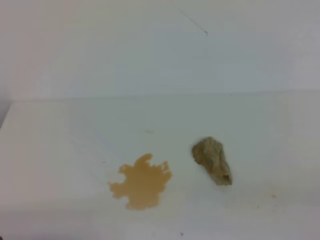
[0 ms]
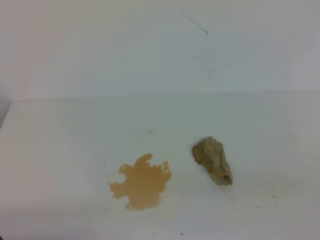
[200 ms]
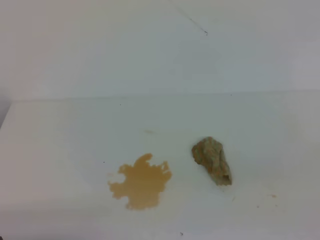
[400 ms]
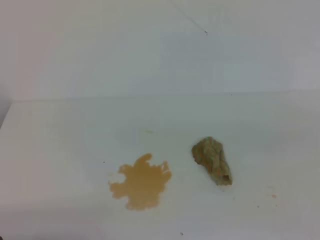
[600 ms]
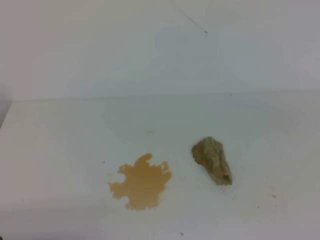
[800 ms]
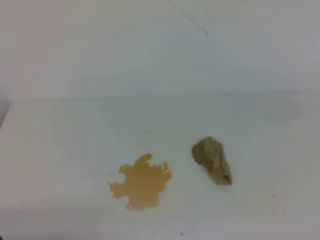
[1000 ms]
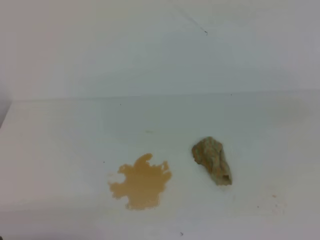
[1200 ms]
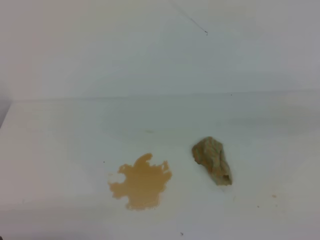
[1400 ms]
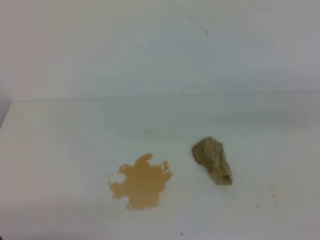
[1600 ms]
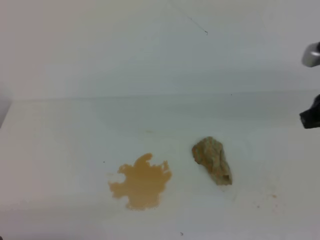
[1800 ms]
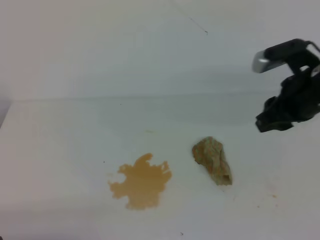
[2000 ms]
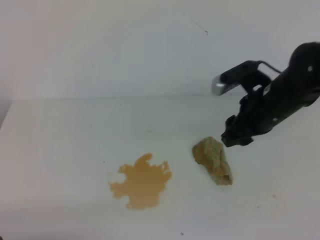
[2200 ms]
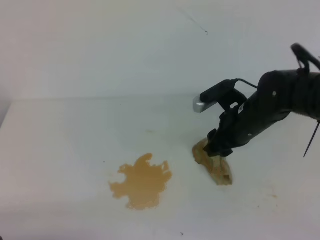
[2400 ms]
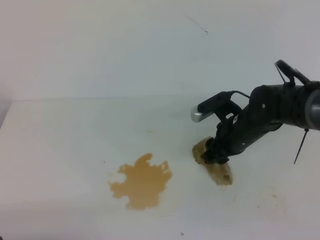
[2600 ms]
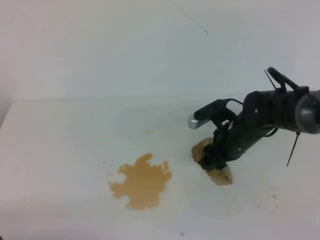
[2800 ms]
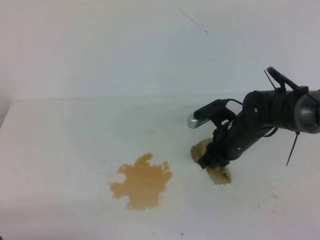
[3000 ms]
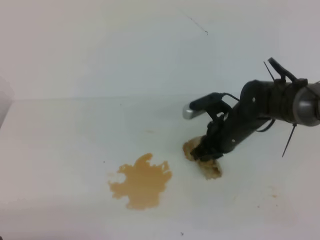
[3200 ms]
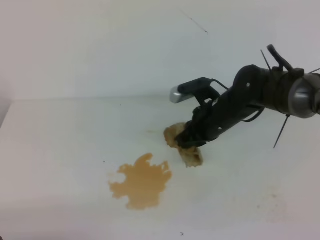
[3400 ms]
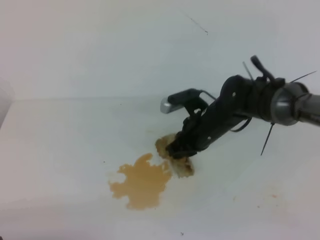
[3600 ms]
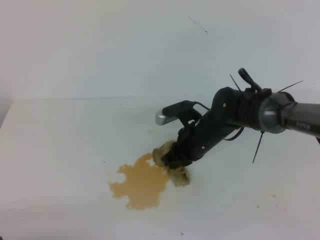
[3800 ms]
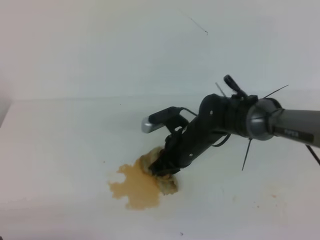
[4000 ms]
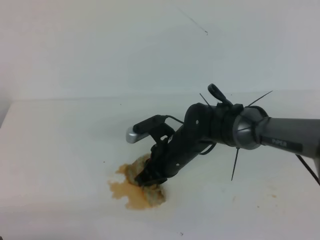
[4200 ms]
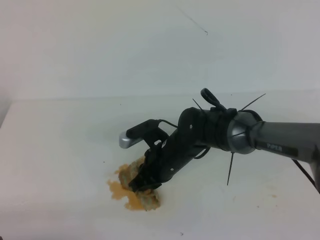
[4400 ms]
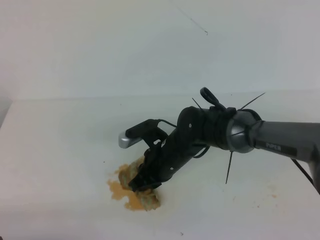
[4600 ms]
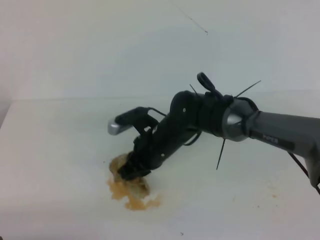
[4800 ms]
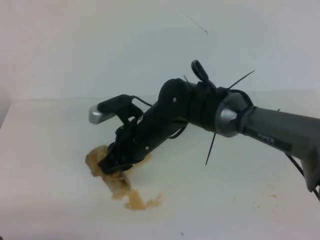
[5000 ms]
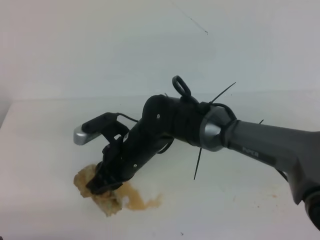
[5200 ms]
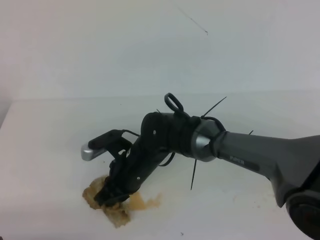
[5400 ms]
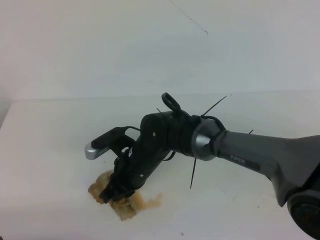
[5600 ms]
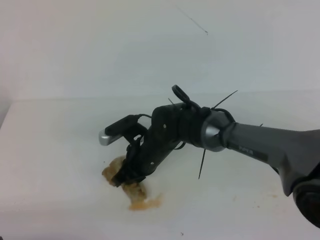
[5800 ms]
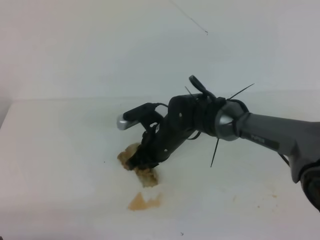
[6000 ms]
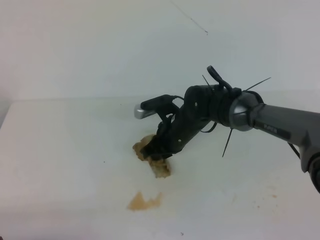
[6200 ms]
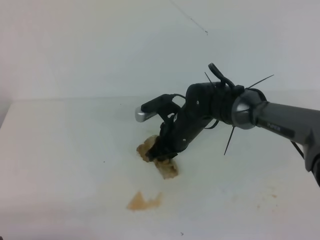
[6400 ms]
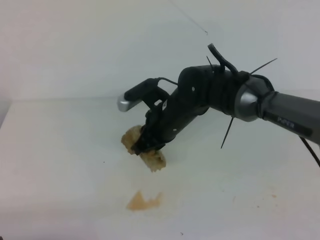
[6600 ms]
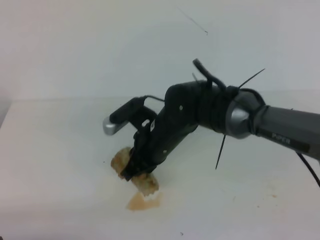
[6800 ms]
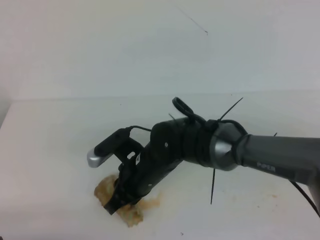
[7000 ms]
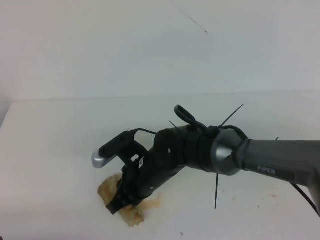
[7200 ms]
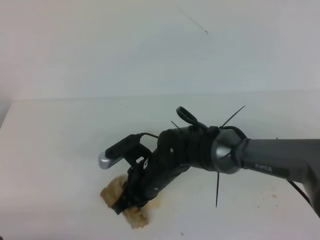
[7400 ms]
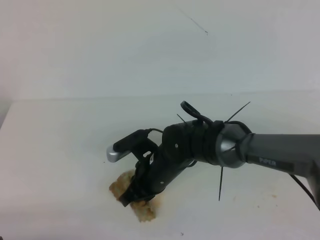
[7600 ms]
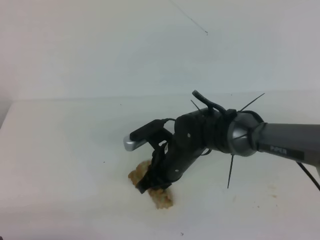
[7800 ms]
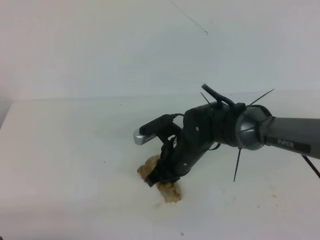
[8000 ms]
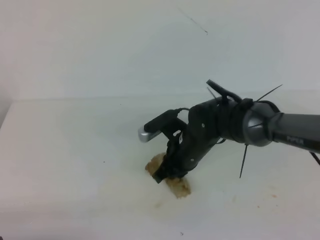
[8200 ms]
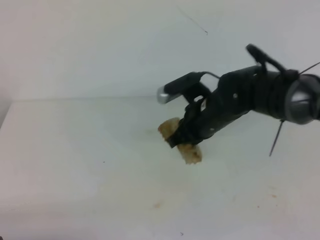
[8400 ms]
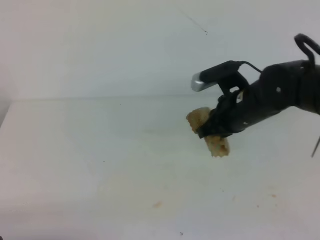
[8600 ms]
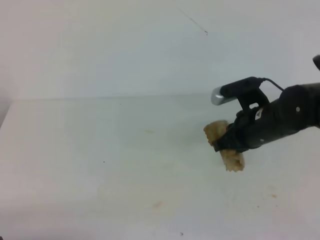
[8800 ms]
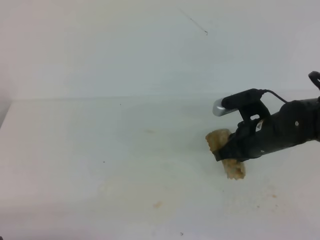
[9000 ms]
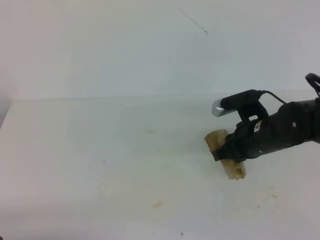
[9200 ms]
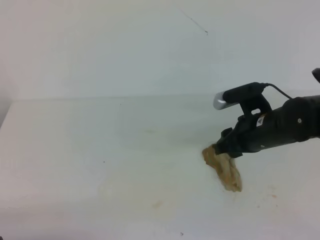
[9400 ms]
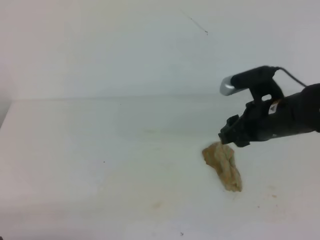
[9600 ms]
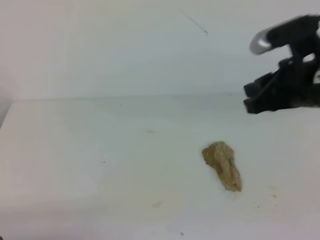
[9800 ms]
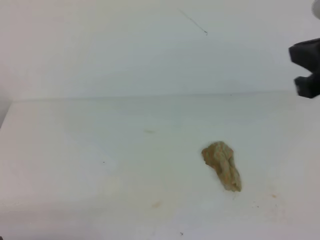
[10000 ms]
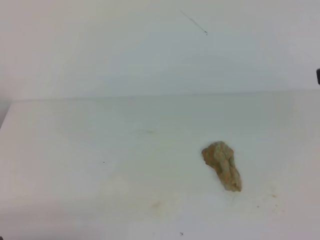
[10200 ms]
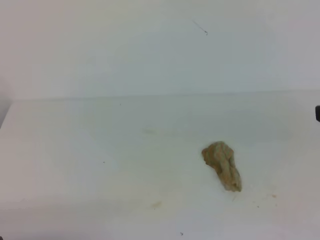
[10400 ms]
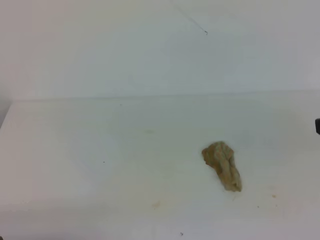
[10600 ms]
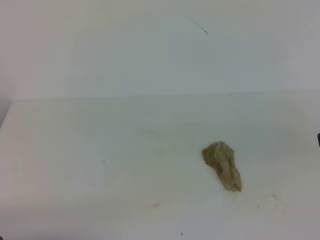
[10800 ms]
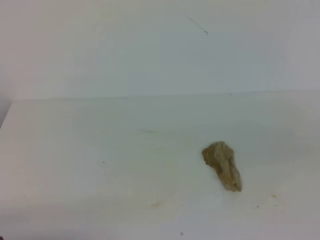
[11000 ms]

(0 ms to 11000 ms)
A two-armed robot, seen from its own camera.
1600 ms - 3200 ms: The right gripper is displaced to the left, downward and forward by about 25 cm, and opens, then closes again.
3200 ms - 4800 ms: The right gripper heads to the left, covering approximately 15 cm.
4800 ms - 6200 ms: The right gripper travels forward by some 5 cm.
6200 ms - 7800 ms: The right gripper heads backward, covering some 5 cm.
7800 ms - 9400 ms: The right gripper goes some 15 cm to the right and upward, and opens.
9400 ms - 11000 ms: The right gripper shifts approximately 25 cm backward, upward and to the right, and closes its fingers.

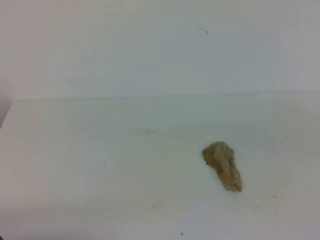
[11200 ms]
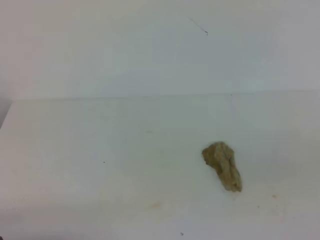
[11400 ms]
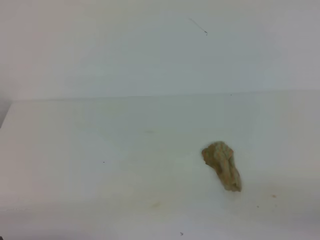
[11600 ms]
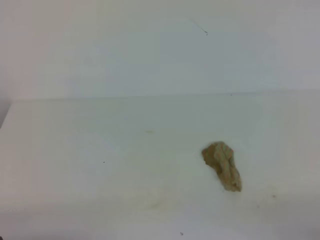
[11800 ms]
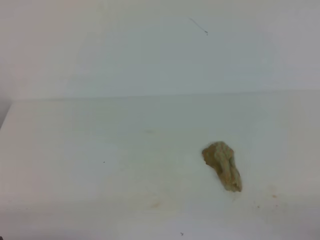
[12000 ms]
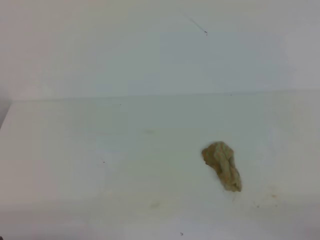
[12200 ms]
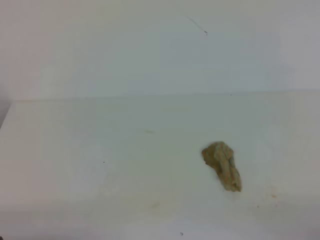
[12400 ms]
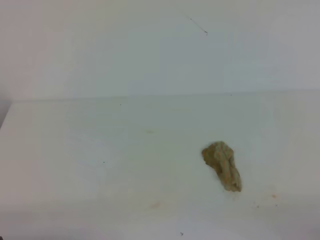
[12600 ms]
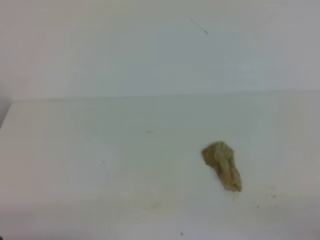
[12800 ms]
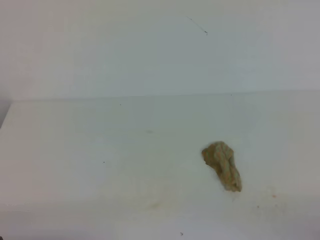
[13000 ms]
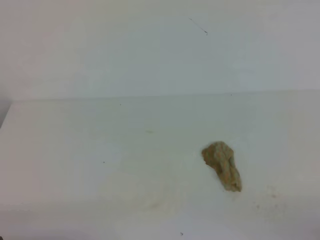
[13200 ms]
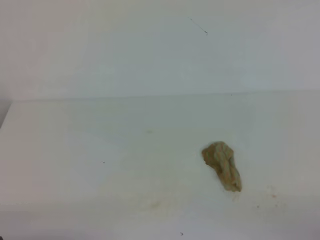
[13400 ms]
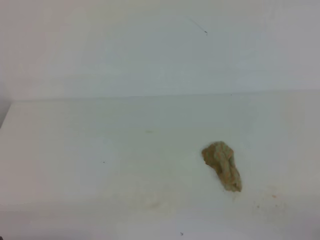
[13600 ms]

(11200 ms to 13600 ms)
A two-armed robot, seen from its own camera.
12400 ms - 13600 ms: The two grippers keep their place.
